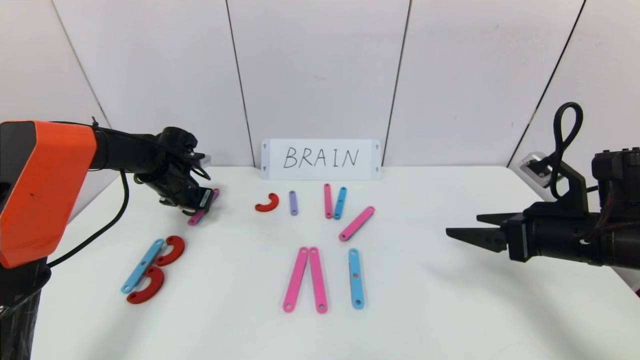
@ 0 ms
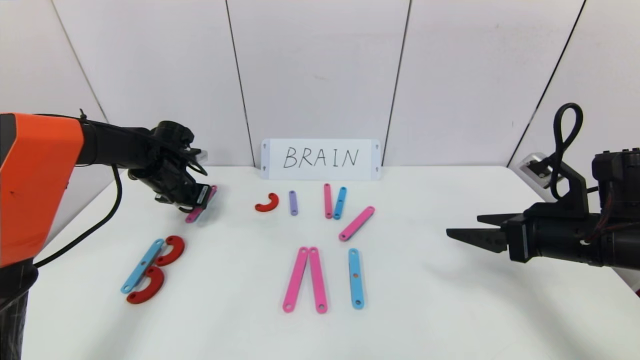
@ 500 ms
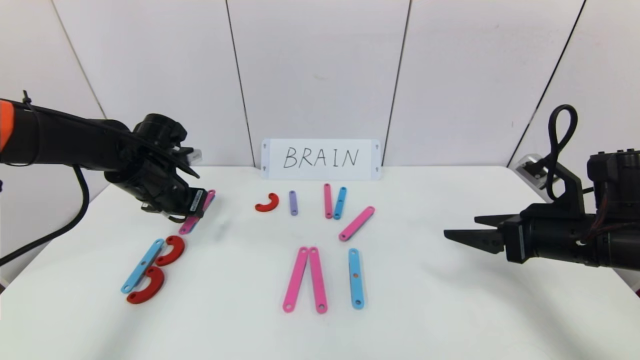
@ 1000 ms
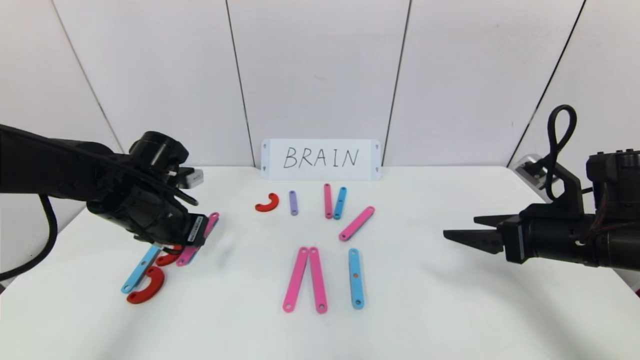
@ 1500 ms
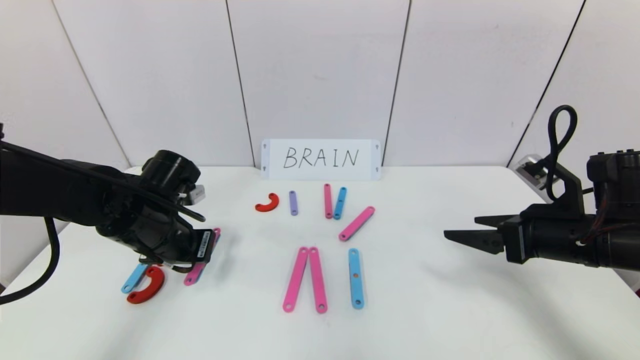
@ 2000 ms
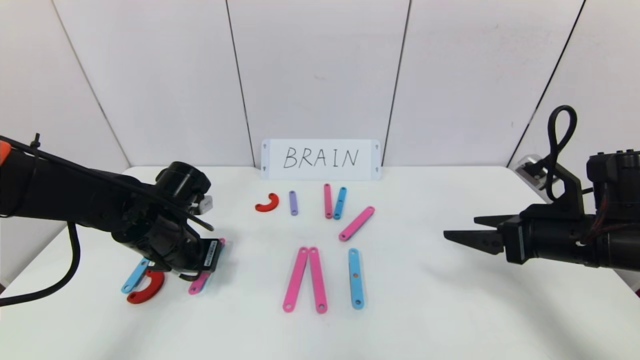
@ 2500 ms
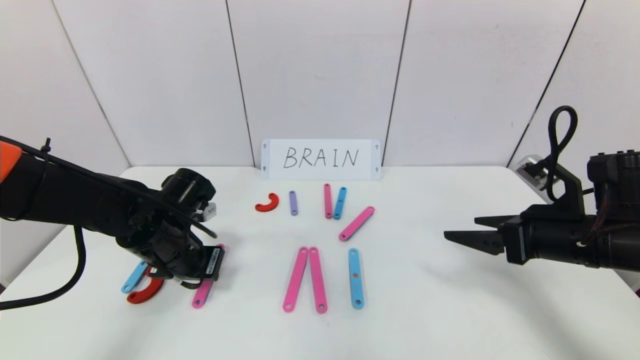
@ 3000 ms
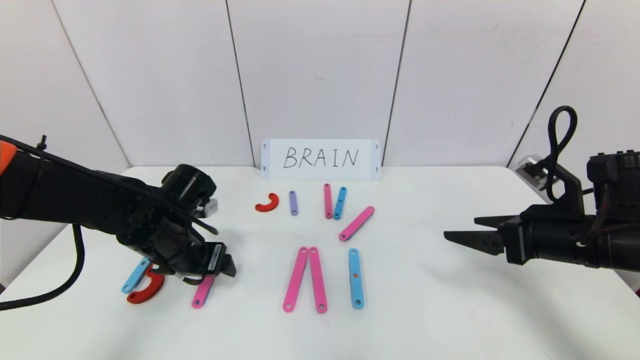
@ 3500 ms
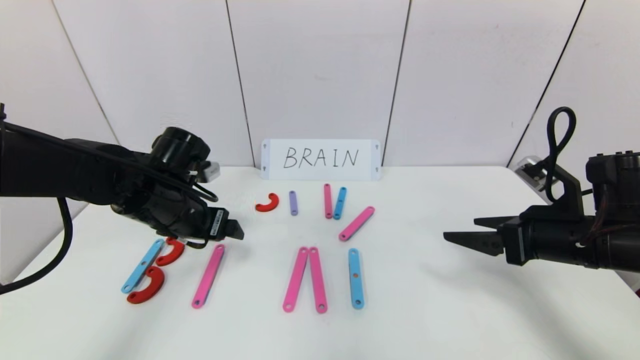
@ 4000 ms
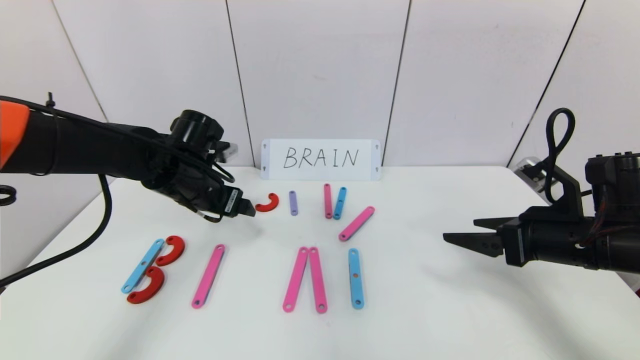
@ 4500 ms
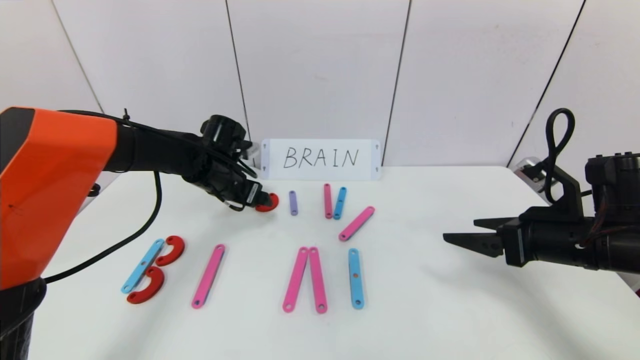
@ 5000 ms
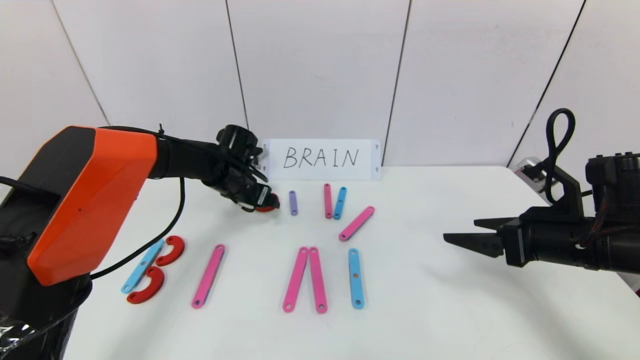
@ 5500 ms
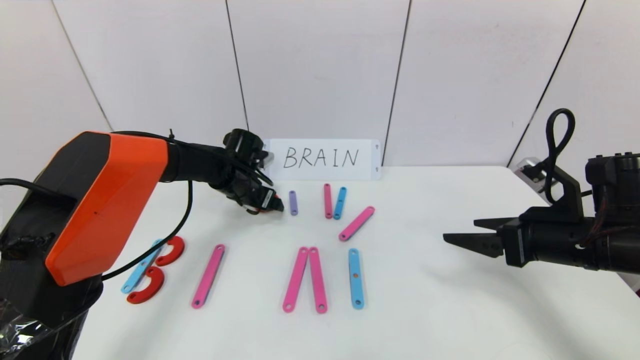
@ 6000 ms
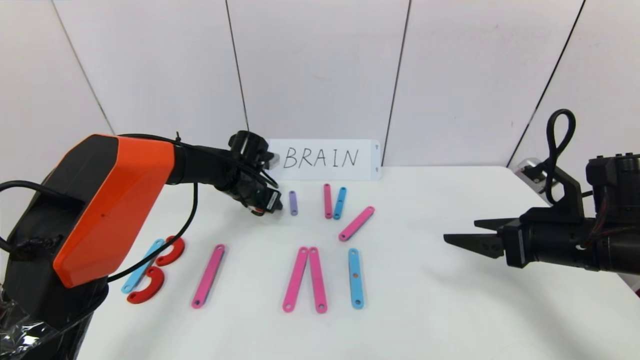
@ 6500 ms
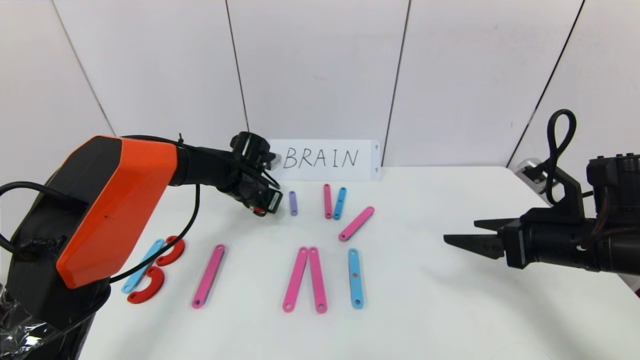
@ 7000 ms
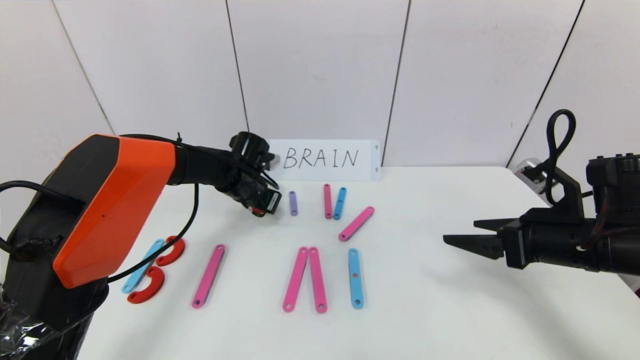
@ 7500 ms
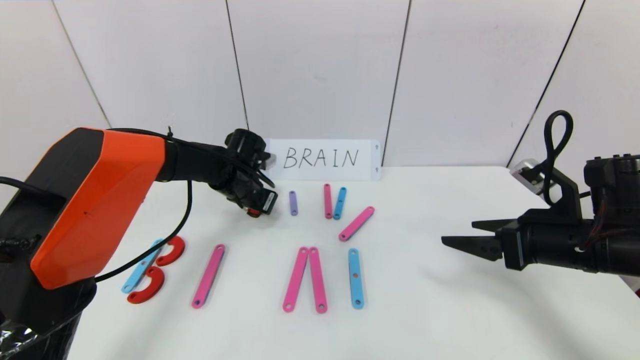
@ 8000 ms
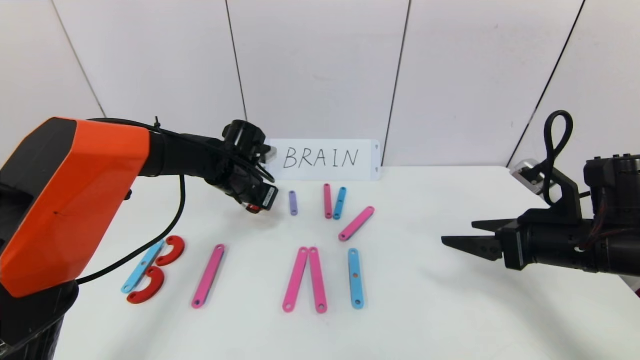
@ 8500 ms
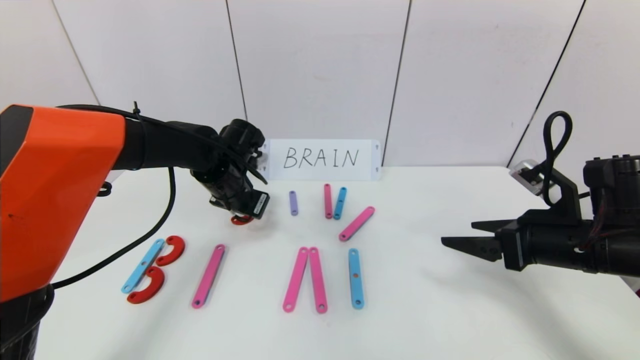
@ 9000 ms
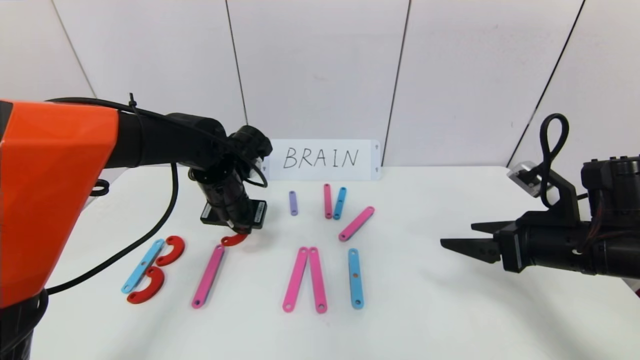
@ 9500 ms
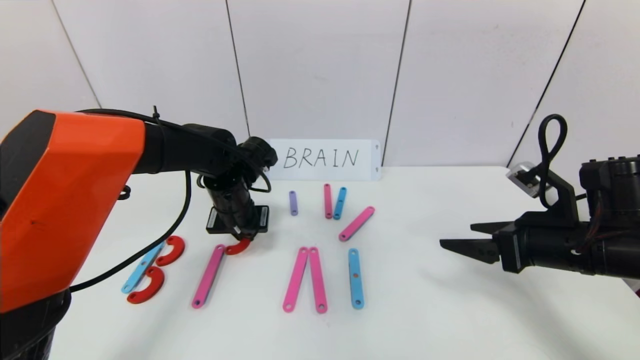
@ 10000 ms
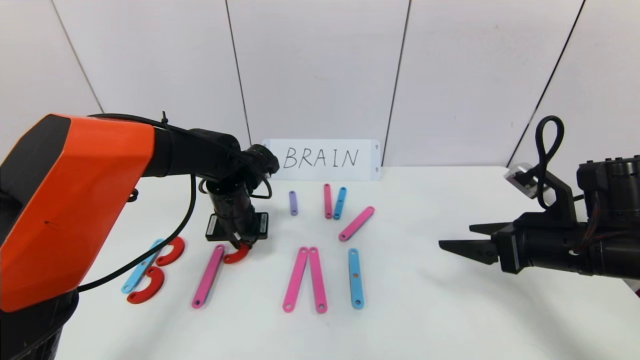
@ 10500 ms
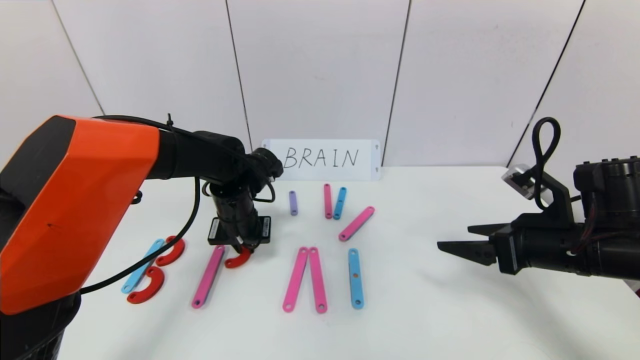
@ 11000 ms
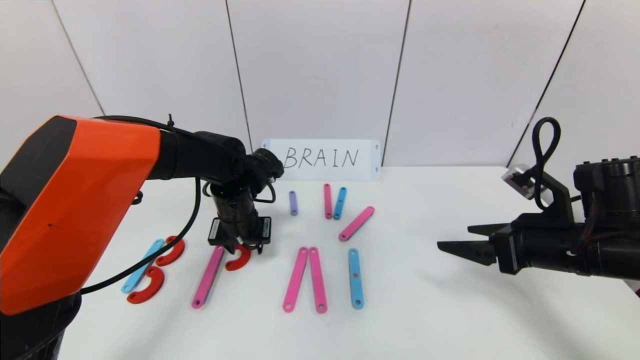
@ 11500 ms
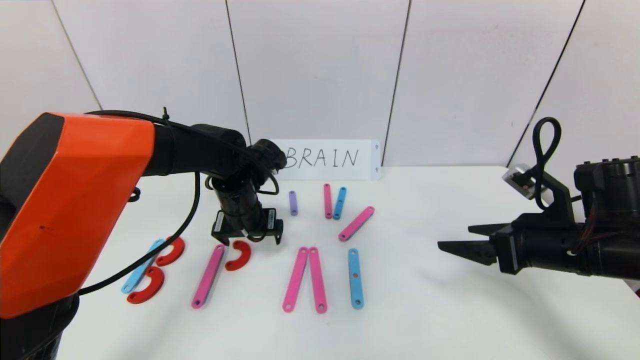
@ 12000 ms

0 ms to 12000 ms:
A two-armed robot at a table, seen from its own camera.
Task of the whole recording: rearrange the word baai as brain.
0 ms to 2000 ms: The left gripper moves backward and to the right, some 15 cm.
2000 ms to 4000 ms: The left gripper opens up.
4000 ms to 6000 ms: The left gripper shifts roughly 15 cm forward.
6000 ms to 8000 ms: The left gripper closes its fingers.
8000 ms to 10000 ms: The left gripper moves backward, roughly 5 cm.
10000 ms to 12000 ms: The left gripper opens its fingers.

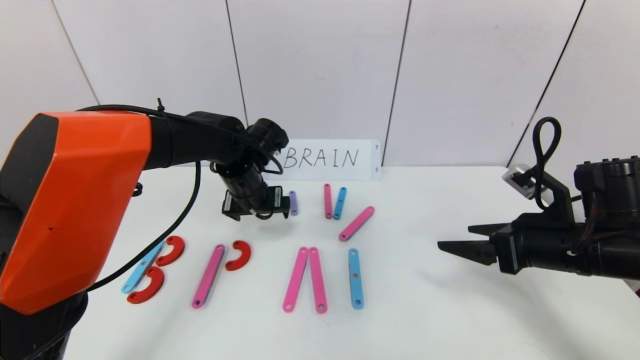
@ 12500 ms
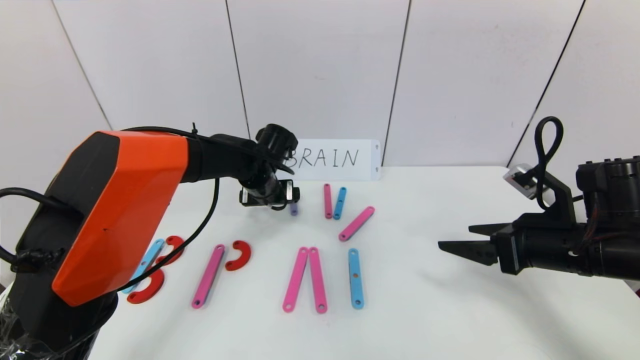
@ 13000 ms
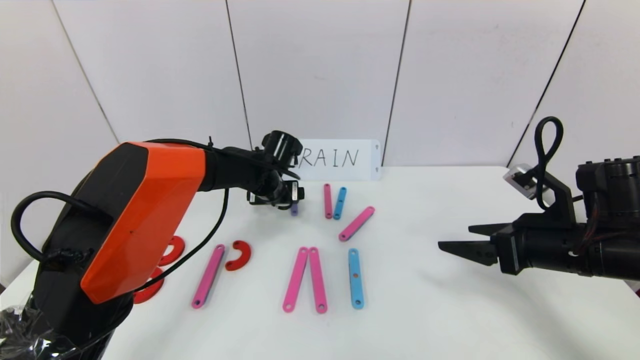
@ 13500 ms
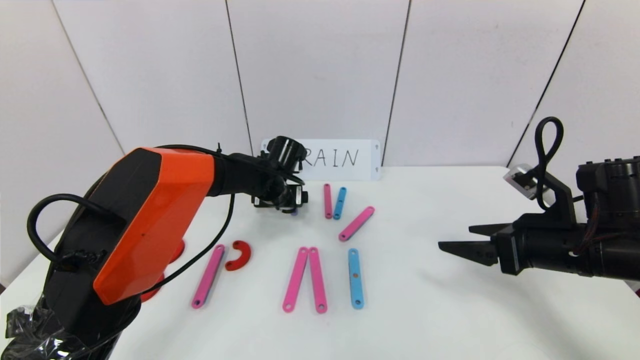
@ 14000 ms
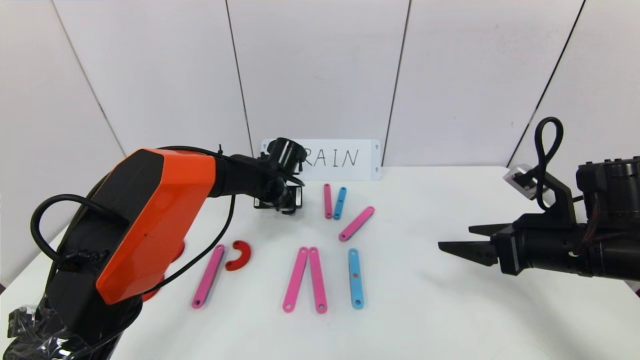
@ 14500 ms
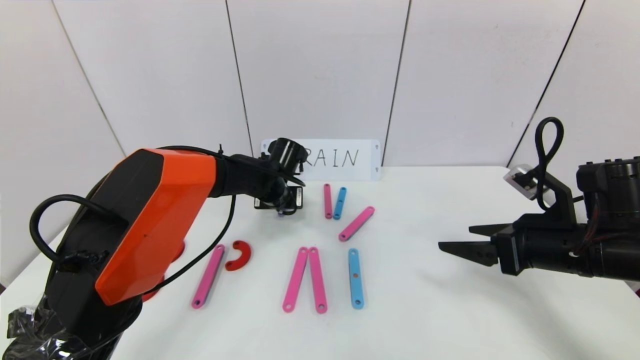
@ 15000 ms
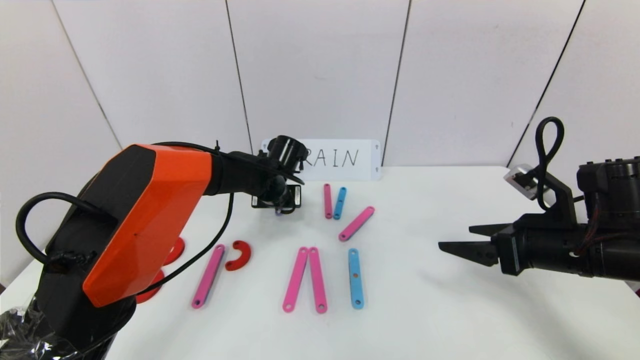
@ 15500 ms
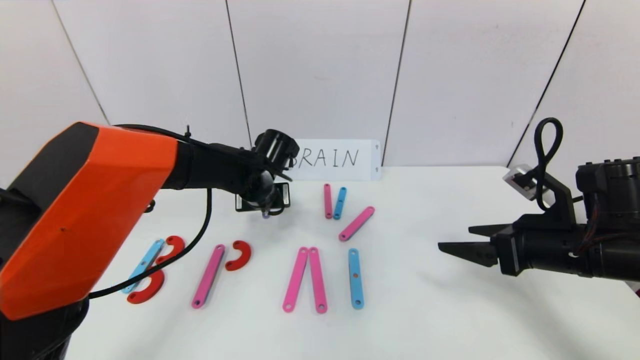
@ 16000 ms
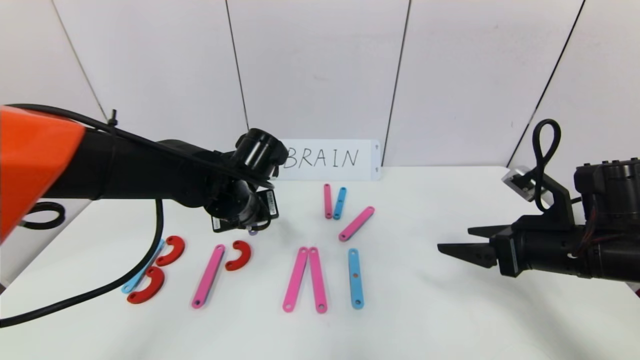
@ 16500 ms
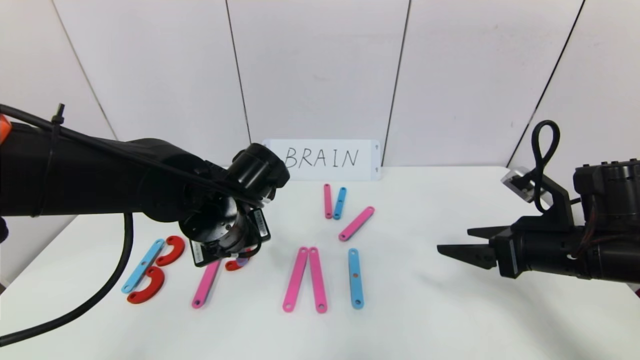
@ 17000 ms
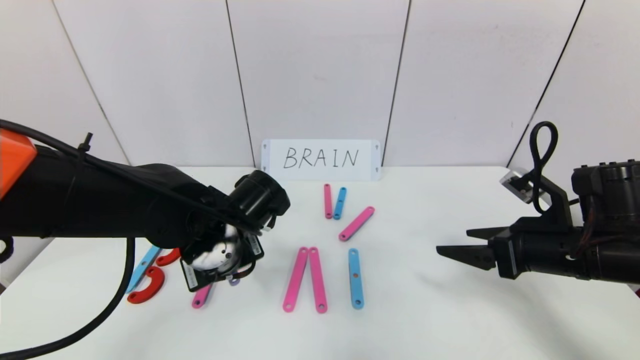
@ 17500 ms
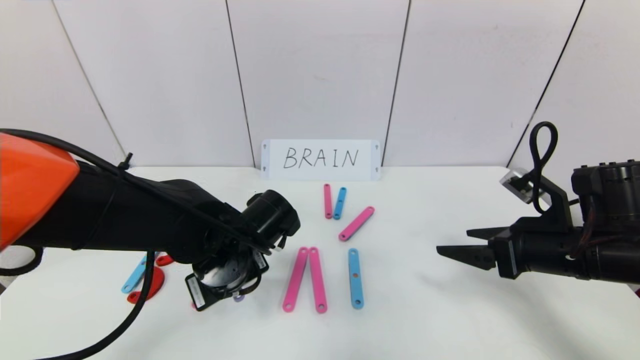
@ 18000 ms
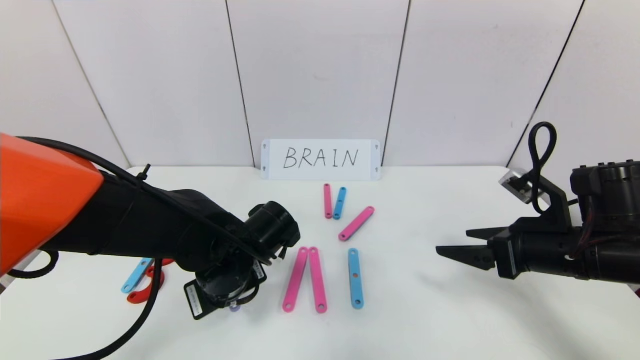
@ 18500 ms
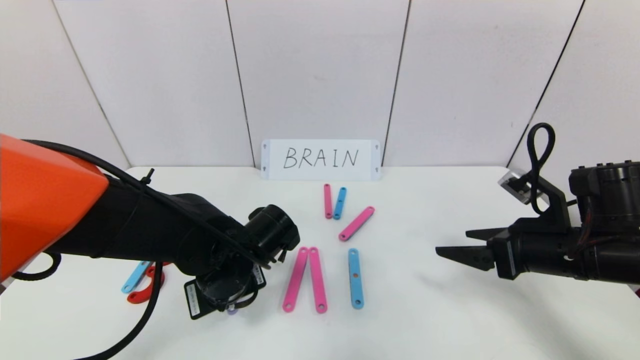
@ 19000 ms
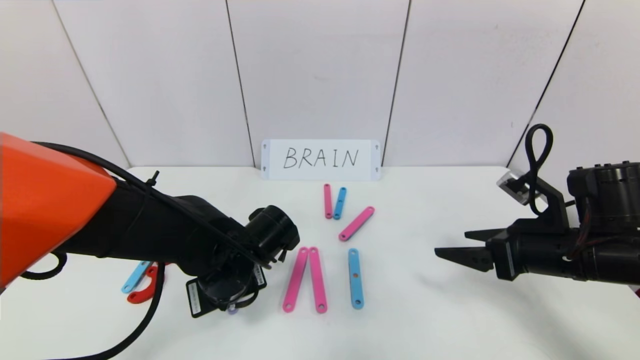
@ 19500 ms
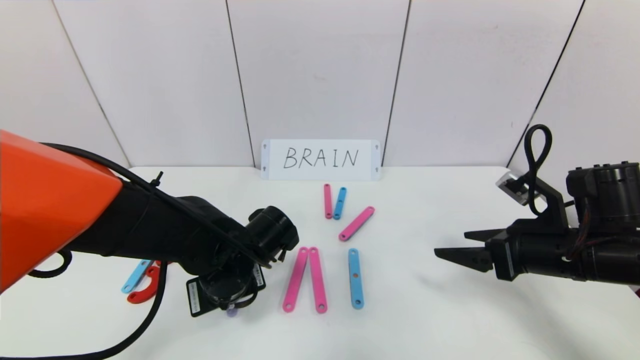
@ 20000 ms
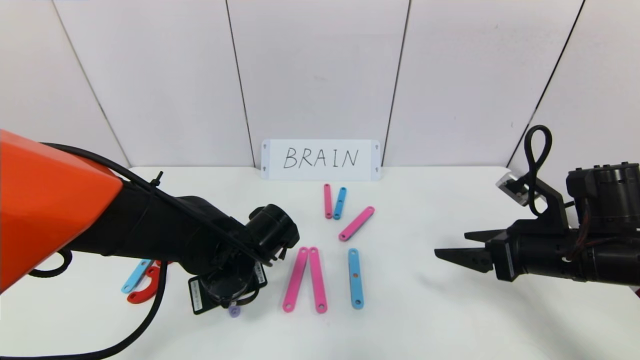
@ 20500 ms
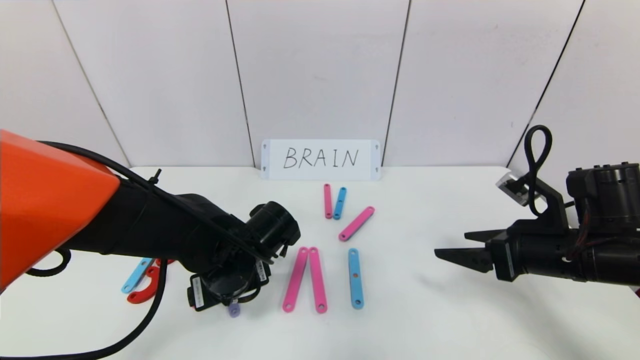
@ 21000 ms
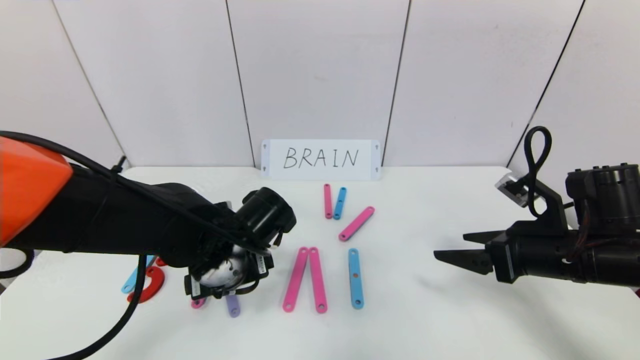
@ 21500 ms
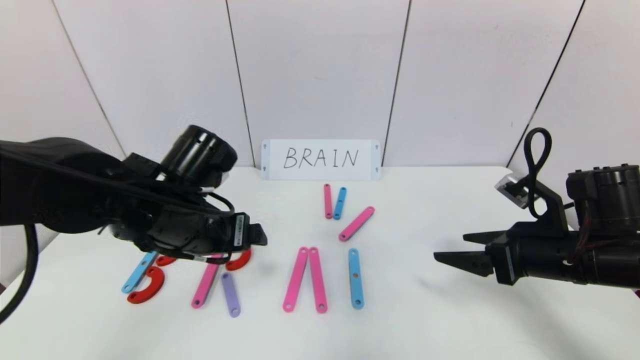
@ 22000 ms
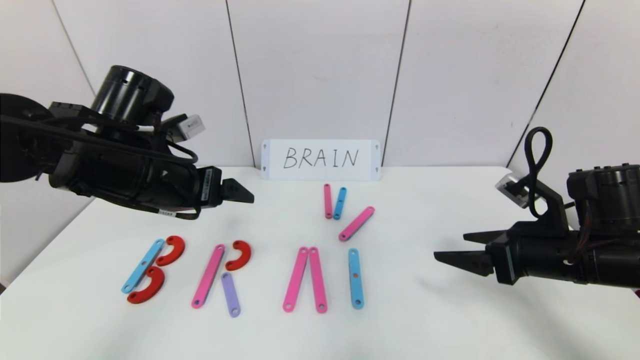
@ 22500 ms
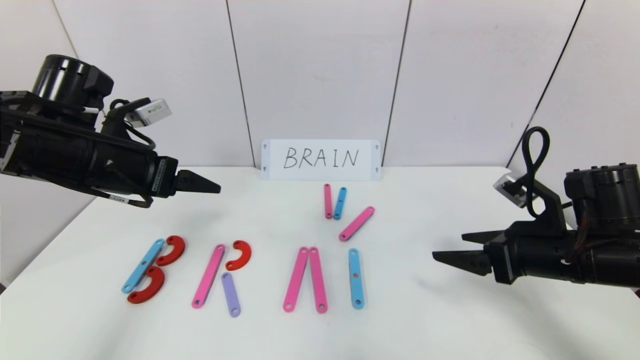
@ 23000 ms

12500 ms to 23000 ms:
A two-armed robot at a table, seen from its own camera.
Task of the whole recording: rearrange the word baai as brain.
Step, 12500 ms to 20500 ms: Place the character R between first character B and third character A.
12500 ms to 14500 ms: The left gripper goes approximately 10 cm downward and forward, and closes its fingers.
14500 ms to 16500 ms: The left gripper heads backward and upward, covering some 15 cm, and closes up.
16500 ms to 19000 ms: The left gripper heads backward and downward, covering about 10 cm.
19000 ms to 21000 ms: The left gripper opens up.
21000 ms to 23000 ms: The left gripper travels to the left and upward by approximately 20 cm.
